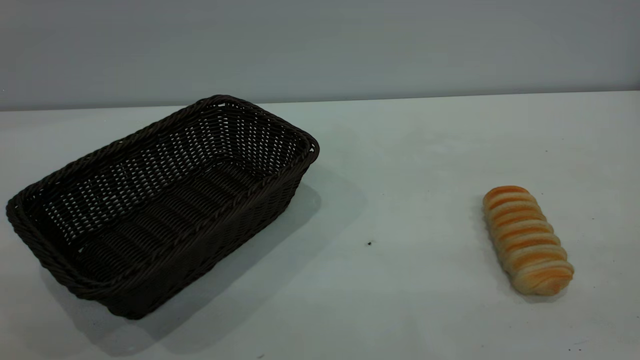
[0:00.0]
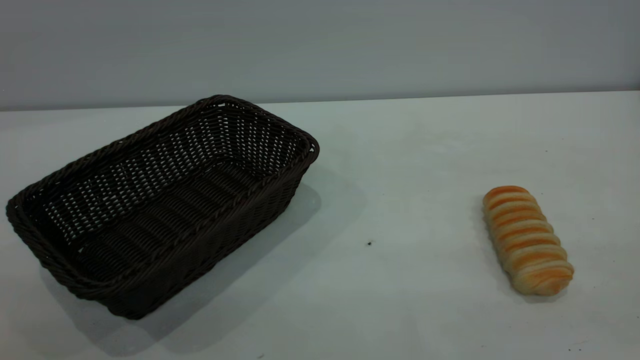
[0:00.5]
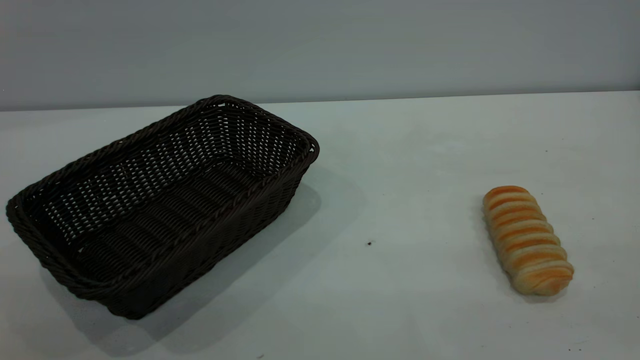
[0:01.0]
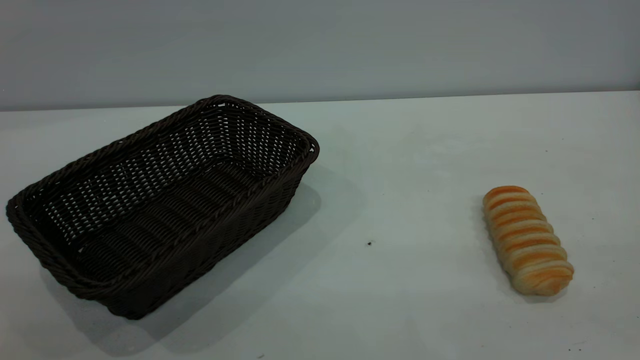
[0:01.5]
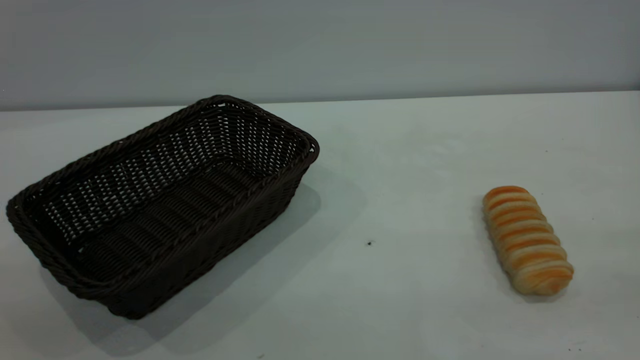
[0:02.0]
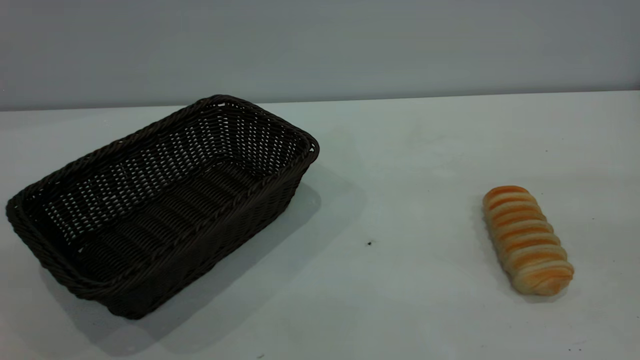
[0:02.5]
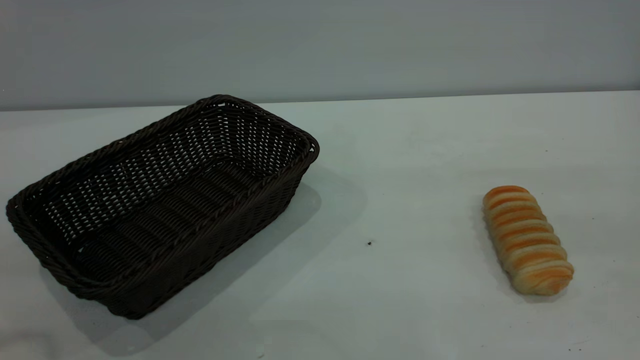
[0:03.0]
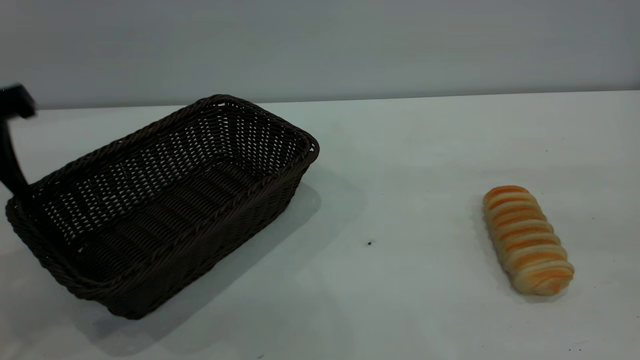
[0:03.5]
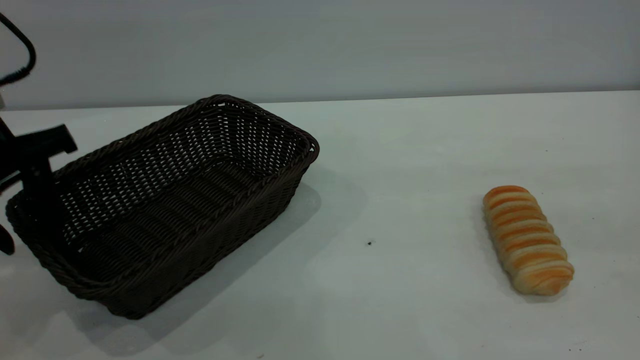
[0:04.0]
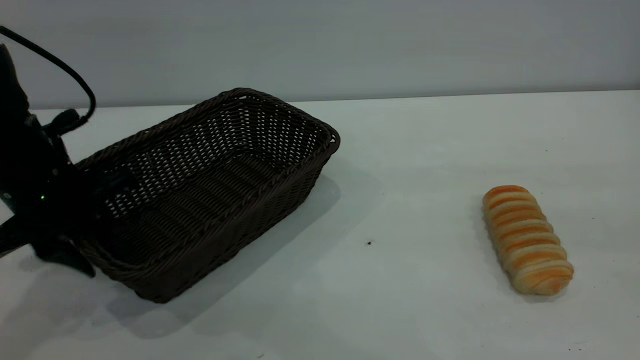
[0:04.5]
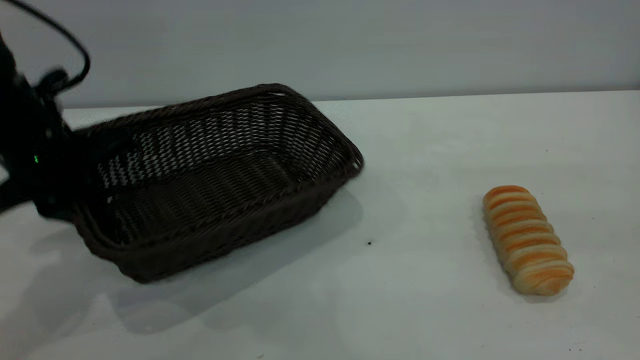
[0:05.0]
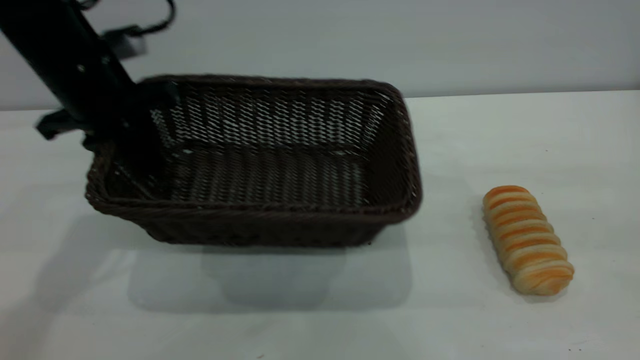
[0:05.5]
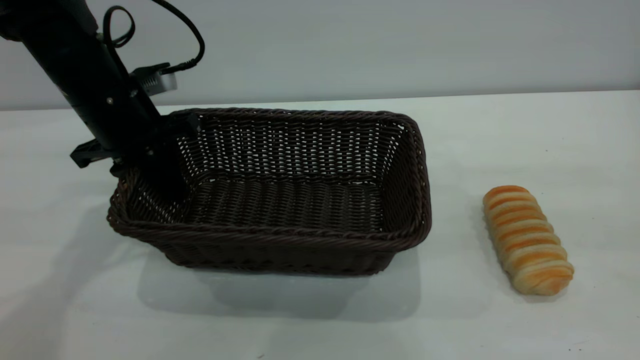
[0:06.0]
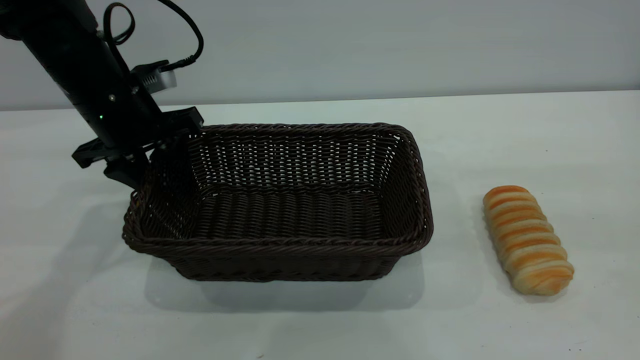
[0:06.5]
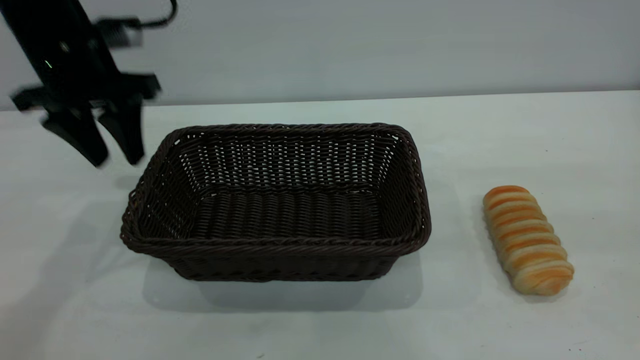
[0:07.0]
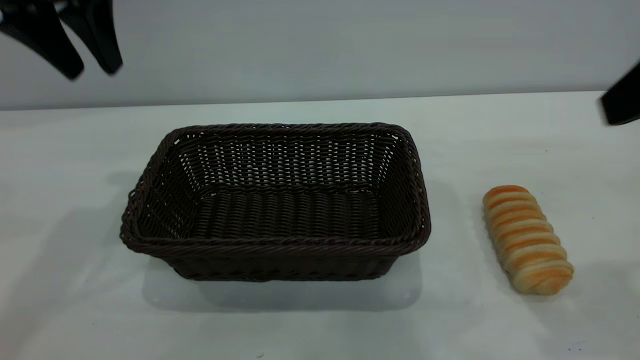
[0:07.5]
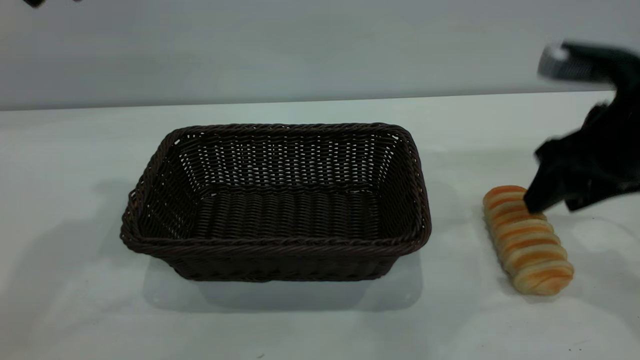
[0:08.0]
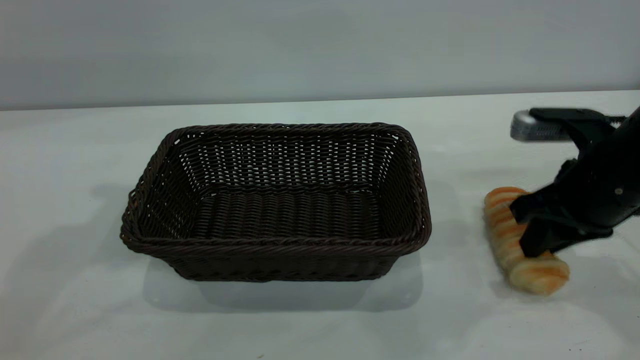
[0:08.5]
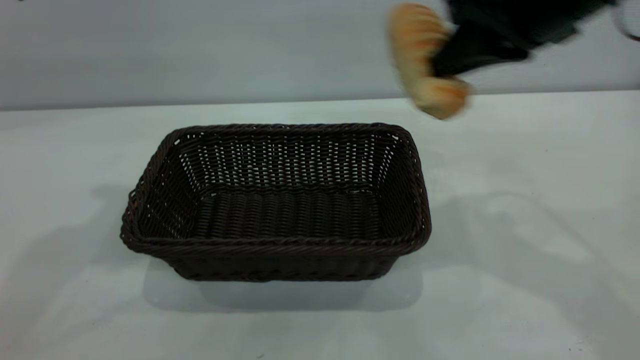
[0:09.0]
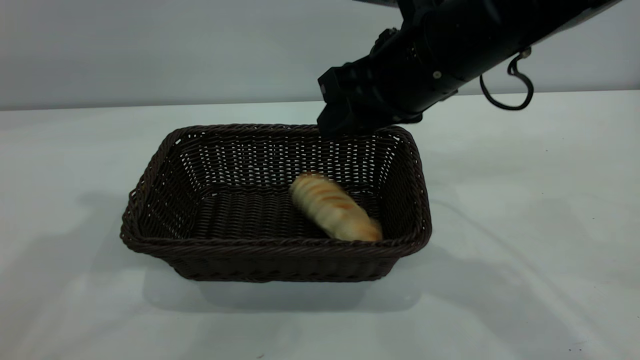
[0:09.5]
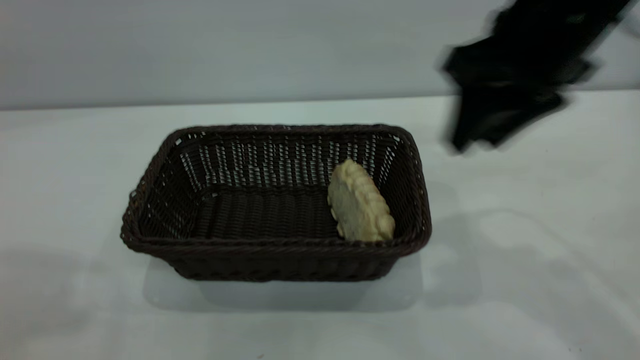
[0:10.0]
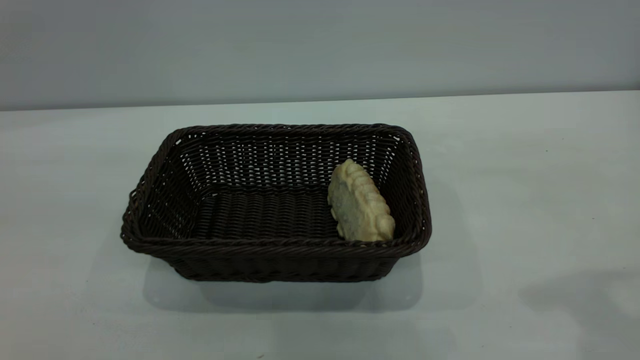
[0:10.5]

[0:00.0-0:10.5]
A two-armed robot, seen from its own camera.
Task of the whole recording: One hand grasps the black basket and places it in the middle of the table, while the other hand picks up the long bread and puts it into the black basket.
Step, 0:00.0 to 0:07.0: Move the basket to the center of view.
Step, 0:09.0 to 0:09.5: place the bread into the basket.
0:02.0 to 0:04.0: The left gripper is displaced forward and downward by approximately 35 cm.
0:04.0 to 0:06.5: The left gripper is displaced forward and to the right by about 10 cm, and closes, then reopens.
0:06.5 to 0:08.5: The left gripper shifts approximately 25 cm upward. The right gripper shifts about 30 cm downward and forward, and closes its fingers.
0:08.5 to 0:10.5: The left gripper goes approximately 25 cm backward. Meanwhile the right gripper goes up and down, roughly 20 cm each way, reversing 2 times, and opens.
